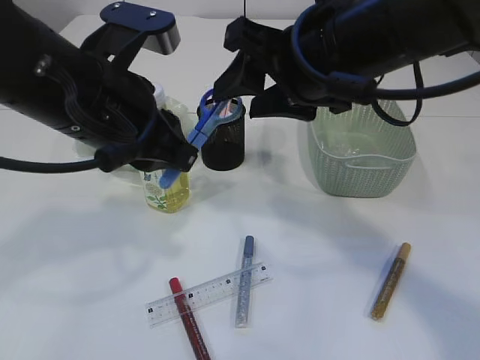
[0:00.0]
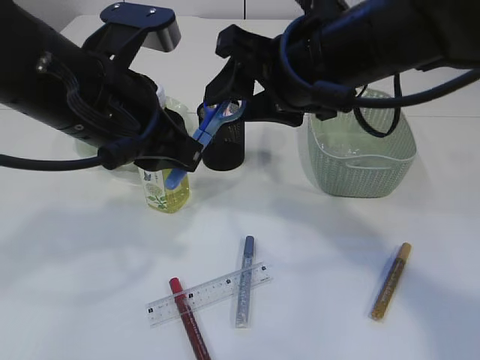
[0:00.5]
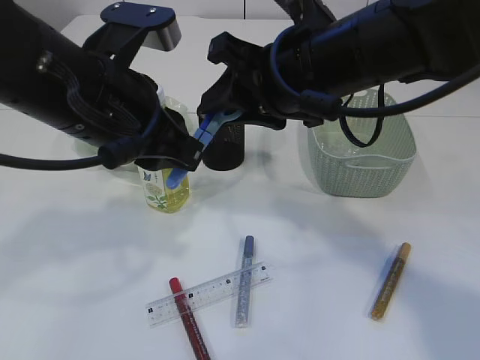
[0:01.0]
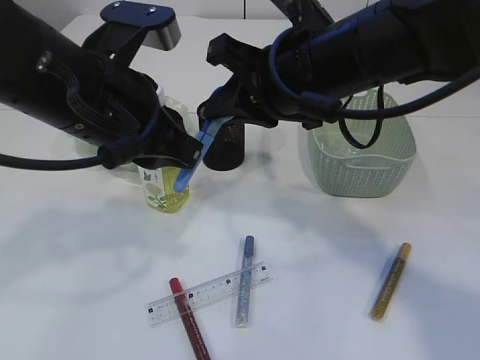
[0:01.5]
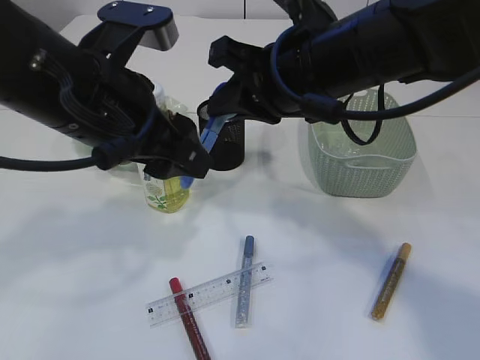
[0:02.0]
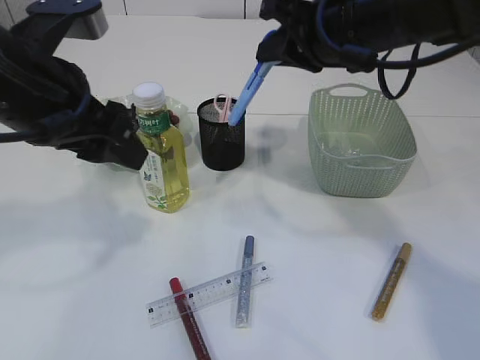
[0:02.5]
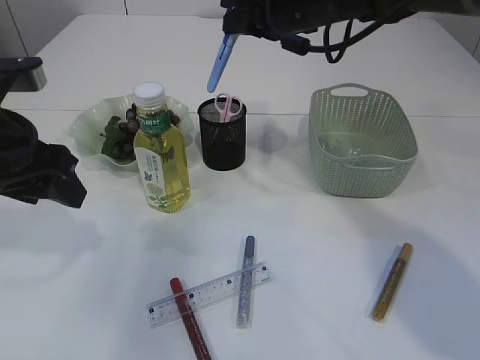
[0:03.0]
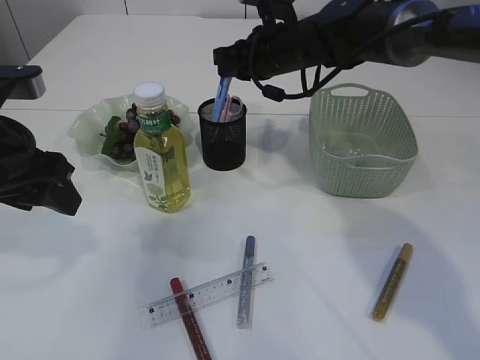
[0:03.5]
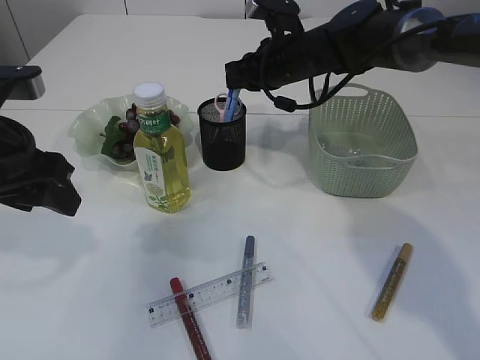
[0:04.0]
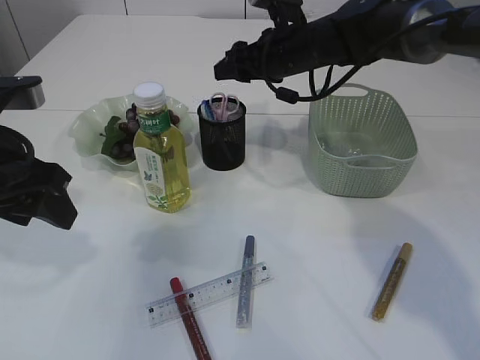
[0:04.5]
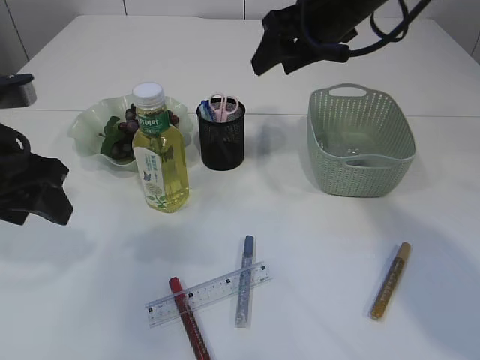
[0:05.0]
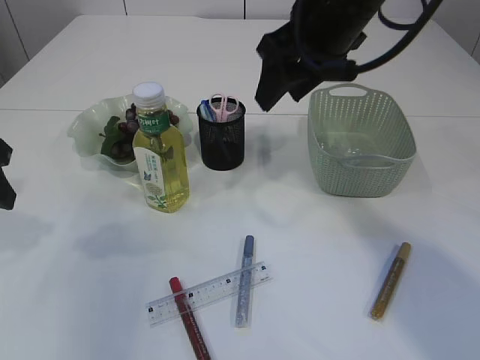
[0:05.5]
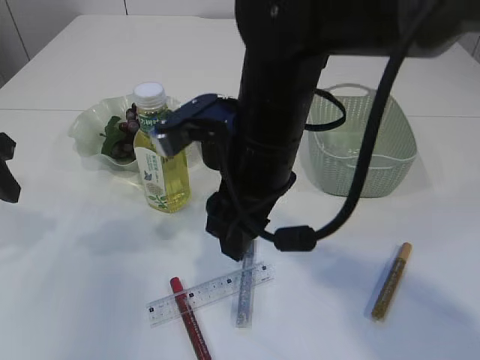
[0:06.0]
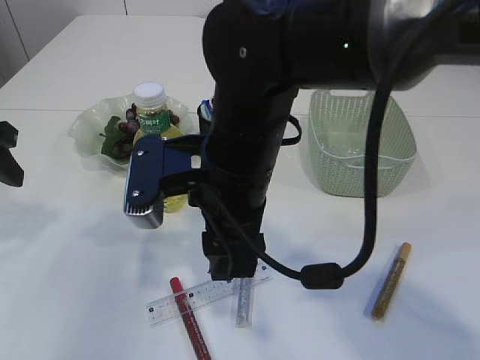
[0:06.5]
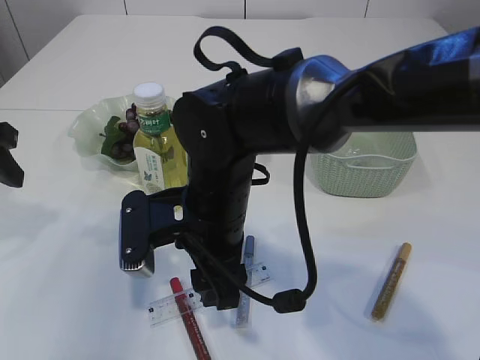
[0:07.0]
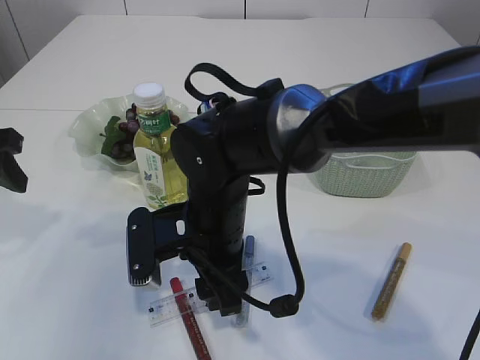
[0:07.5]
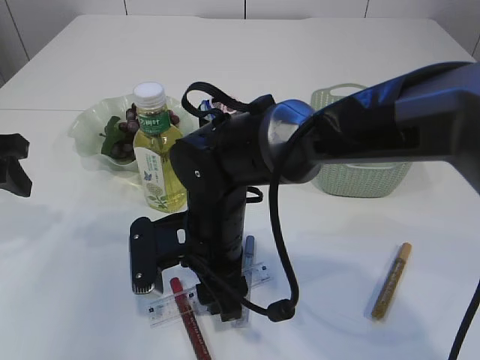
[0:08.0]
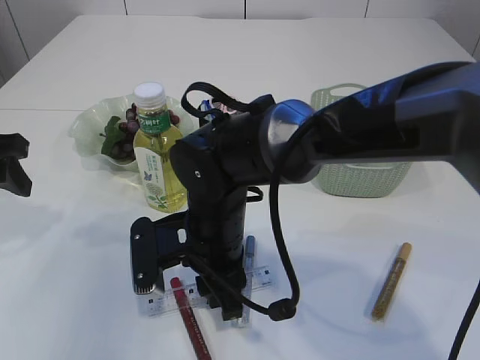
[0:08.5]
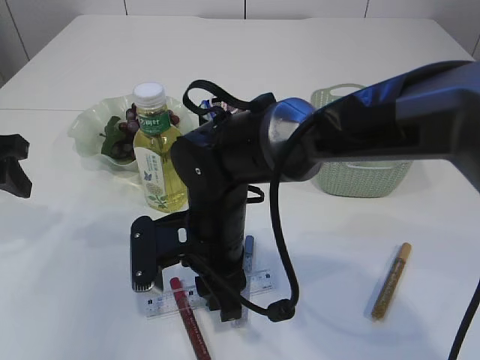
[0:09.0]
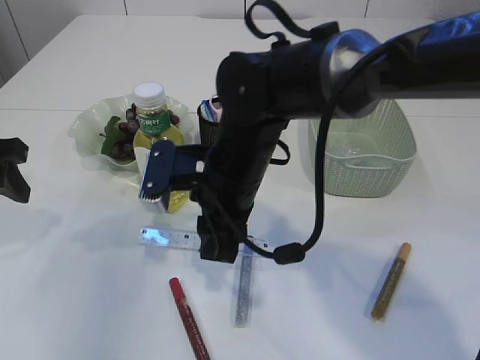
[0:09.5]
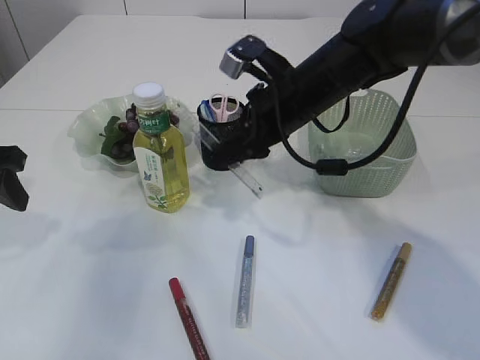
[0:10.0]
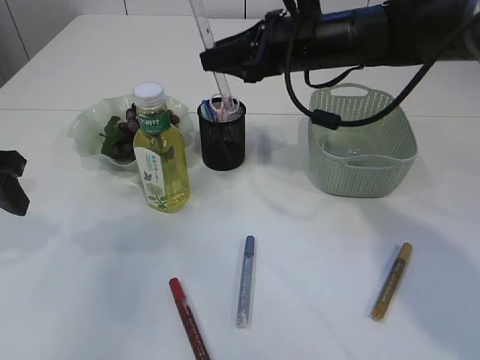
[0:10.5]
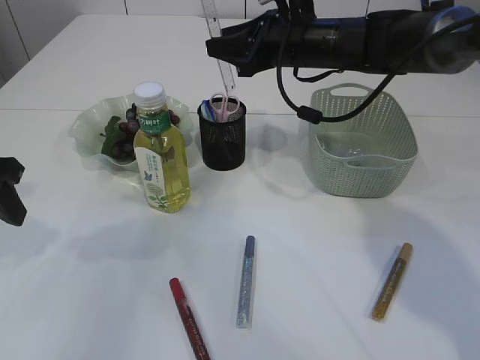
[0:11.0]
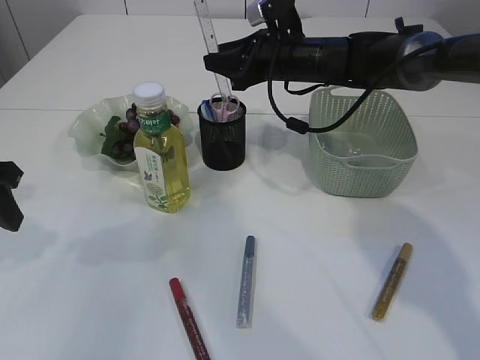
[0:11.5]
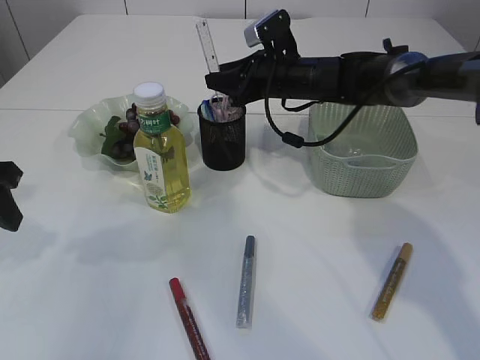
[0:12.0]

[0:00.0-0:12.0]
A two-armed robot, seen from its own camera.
Step, 0:00.0 to 0:02.0: Hand over the blue scissors.
Step, 0:02.5 to 0:04.5: Place the blue scissors into the pen holder.
Step, 0:05.0 to 0:09.5: pick up the ruler.
0:00.0 to 0:02.0: The right gripper closes up, while the left gripper opens up.
0:02.0 to 0:04.0: The left gripper is displaced to the left by approximately 10 cm. The right gripper goes approximately 20 cm forward and downward.
0:04.0 to 0:06.0: The left gripper heads to the left, covering about 5 cm. The right gripper heads backward, covering some 20 cm, and opens up.
0:06.0 to 0:08.0: The right gripper travels downward and to the left by roughly 15 cm.
0:08.0 to 0:10.0: The right gripper is displaced to the right, upward and forward by approximately 15 cm, and closes its fingers.
0:10.0 to 0:12.0: The right gripper shifts about 10 cm forward.

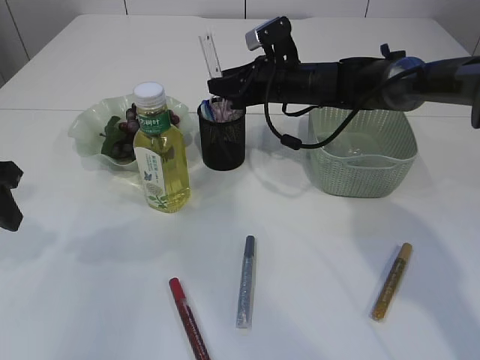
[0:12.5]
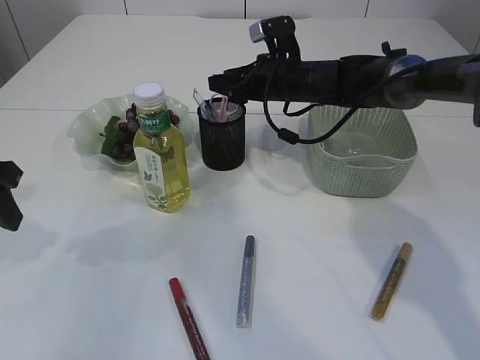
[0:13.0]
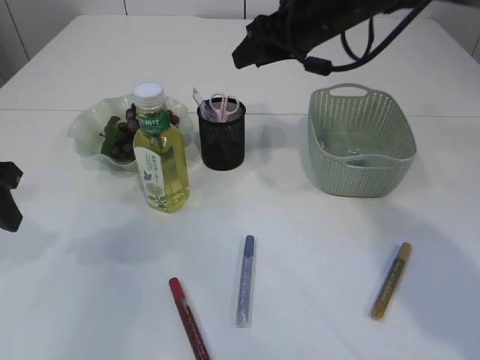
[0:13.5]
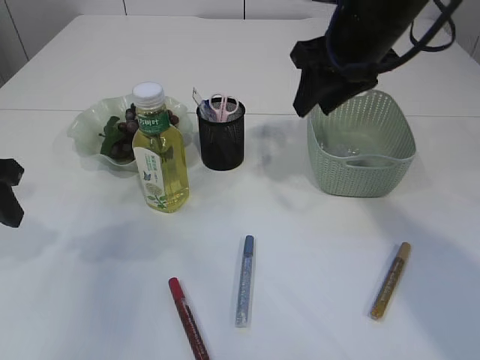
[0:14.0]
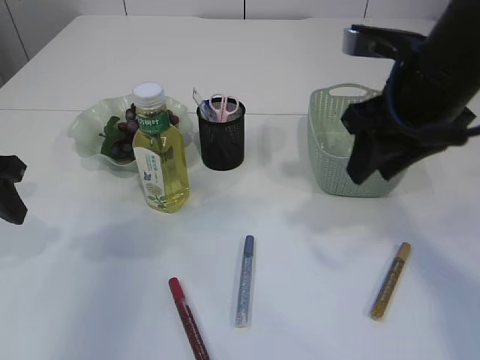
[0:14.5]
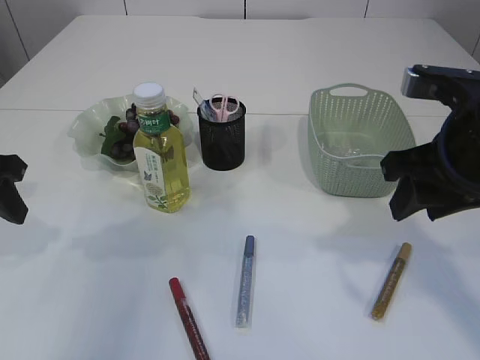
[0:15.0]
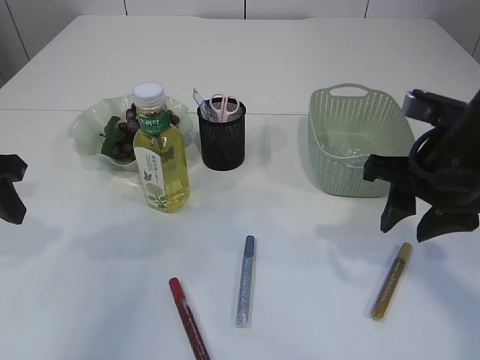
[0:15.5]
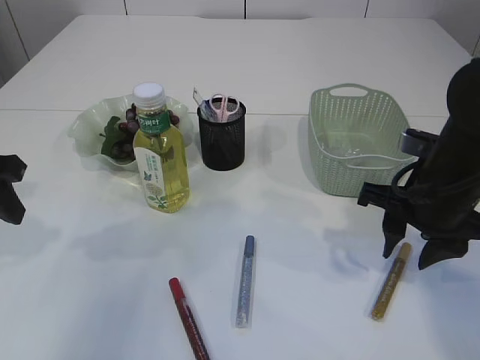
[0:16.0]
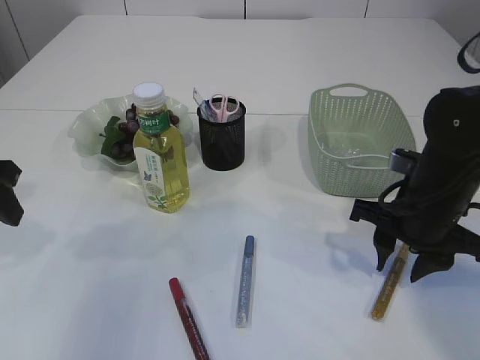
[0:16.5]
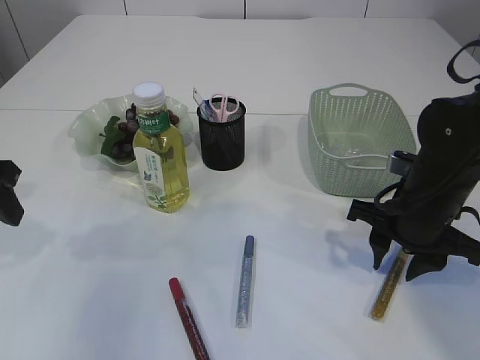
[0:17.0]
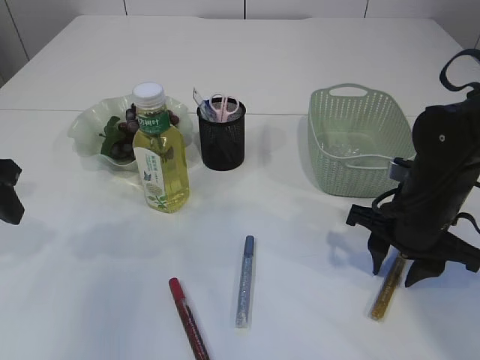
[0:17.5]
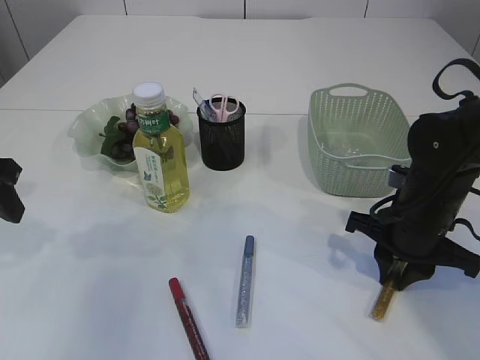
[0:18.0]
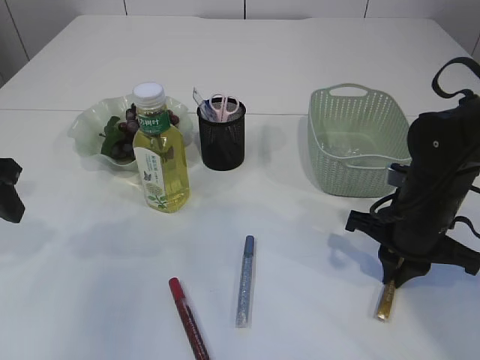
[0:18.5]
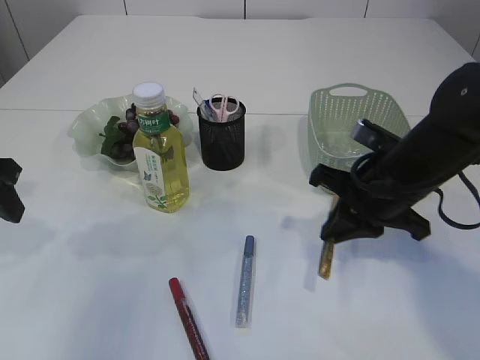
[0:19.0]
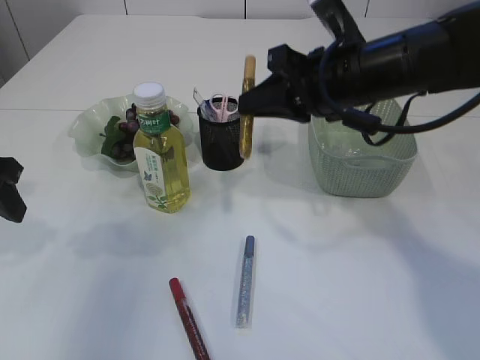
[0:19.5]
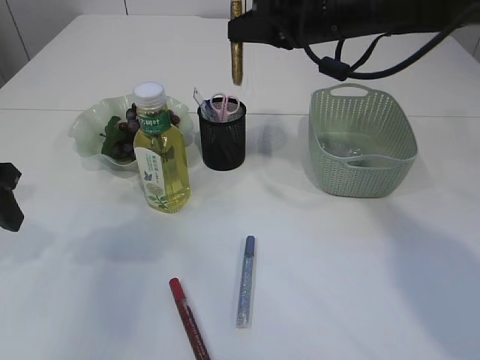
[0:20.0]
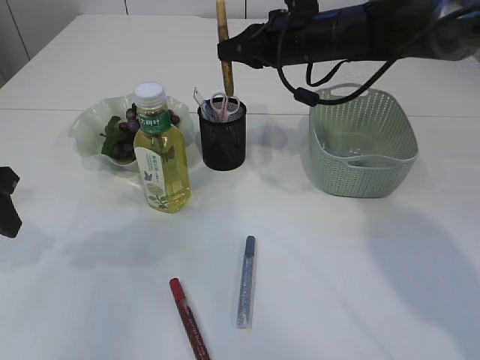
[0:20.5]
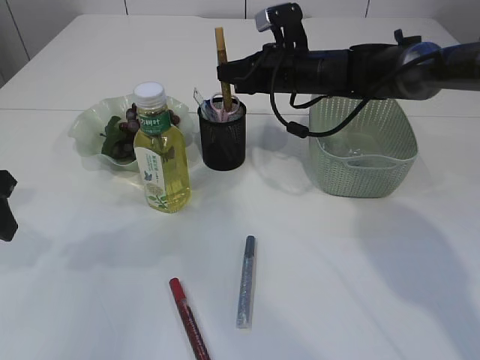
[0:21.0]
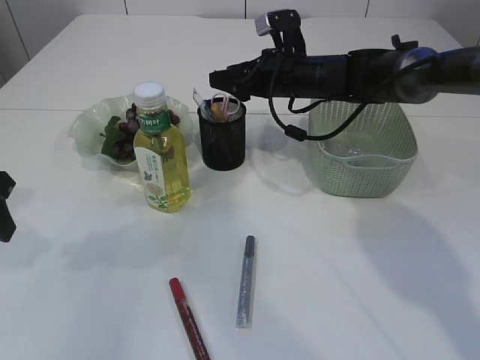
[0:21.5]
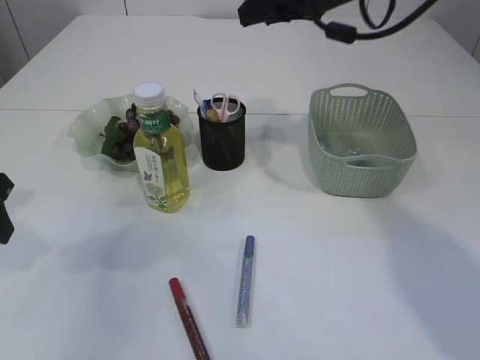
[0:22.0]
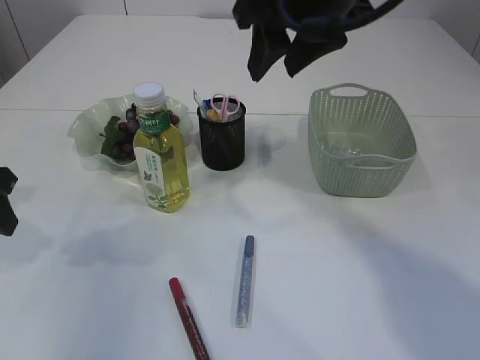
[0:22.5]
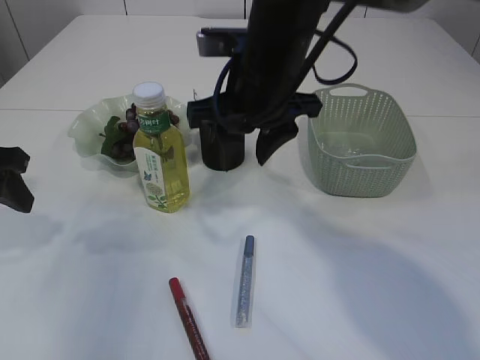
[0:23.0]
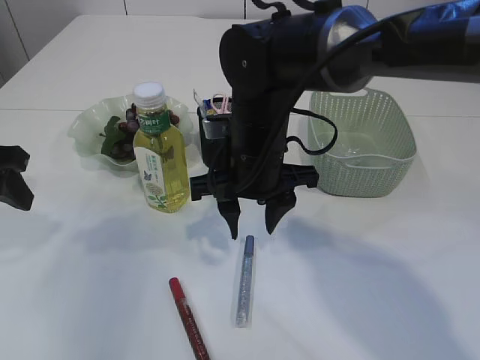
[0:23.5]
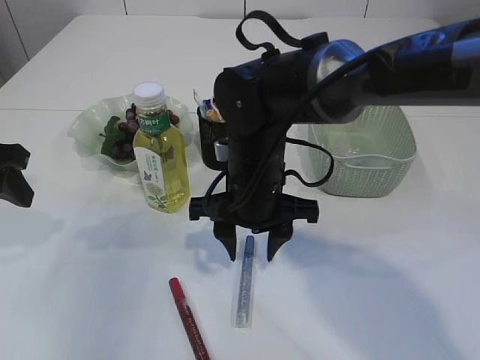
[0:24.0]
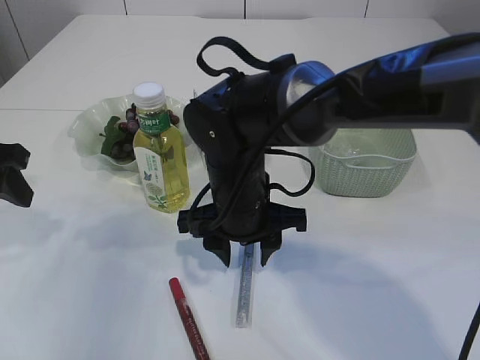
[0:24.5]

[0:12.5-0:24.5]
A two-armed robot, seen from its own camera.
Step, 0:13.5 to 0:19.0: pick up the yellow glue.
Step, 0:19.5 to 0:21.5: place the yellow glue into the pen holder.
0:12.5 to 0:14.5: The right gripper is displaced backward and upward by approximately 25 cm.
0:14.5 to 0:16.5: The right gripper goes about 15 cm downward.
0:16.5 to 0:18.5: The right gripper closes up.
0:18.5 to 0:20.5: The right gripper moves forward, upward and to the left, about 25 cm.
0:20.5 to 0:22.5: The right gripper shifts about 15 cm backward and upward, and opens.
0:22.5 to 0:24.5: The right gripper goes some 20 cm downward and to the left.

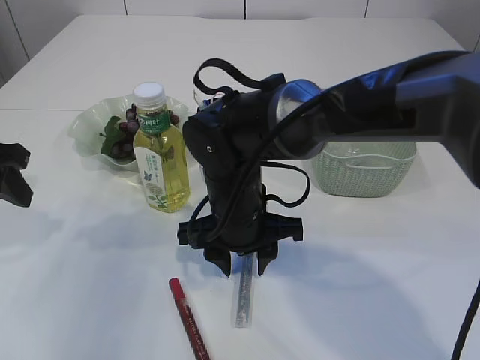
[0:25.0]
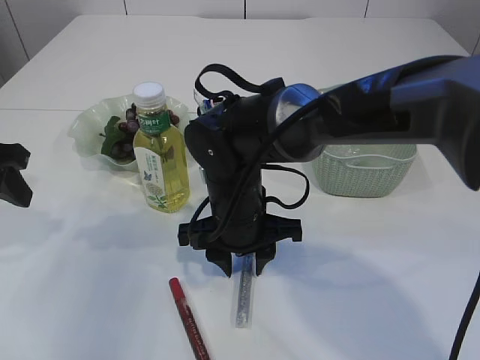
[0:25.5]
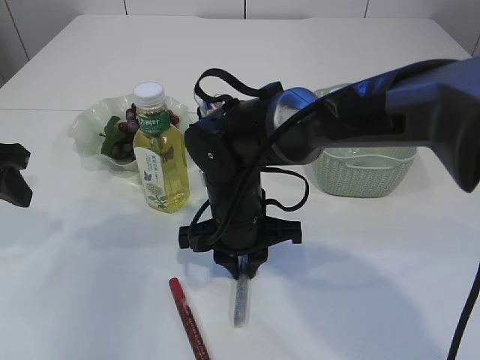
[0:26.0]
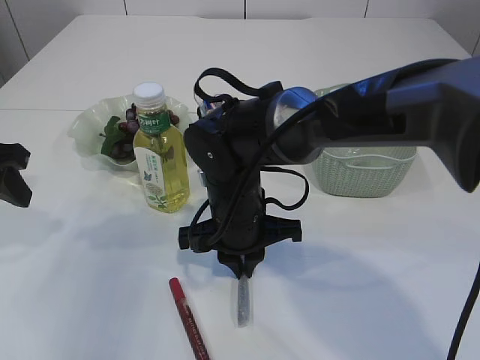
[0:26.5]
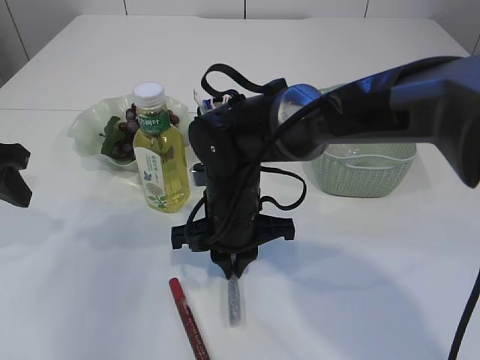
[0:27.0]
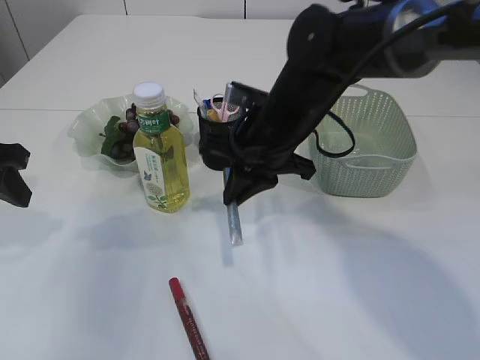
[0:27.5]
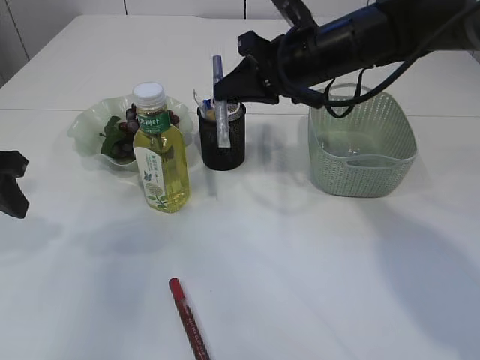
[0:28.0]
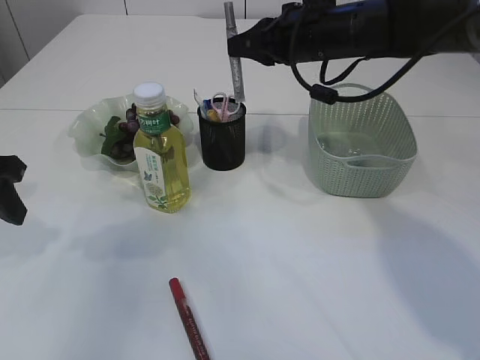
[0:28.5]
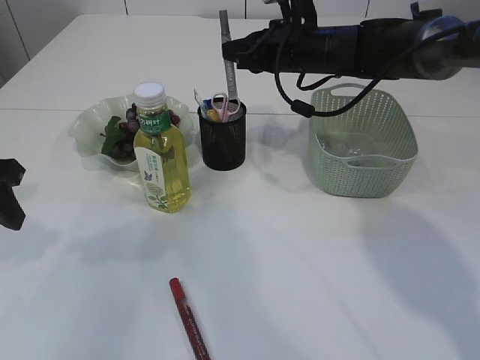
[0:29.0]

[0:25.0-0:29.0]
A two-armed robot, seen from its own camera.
Step, 0:25.0 to 0:27.0: pick up the silver glue.
0:25.0 to 0:27.0: The right gripper closes.
0:27.0 to 0:29.0: The right gripper moves forward, to the right and upward, about 25 cm.
